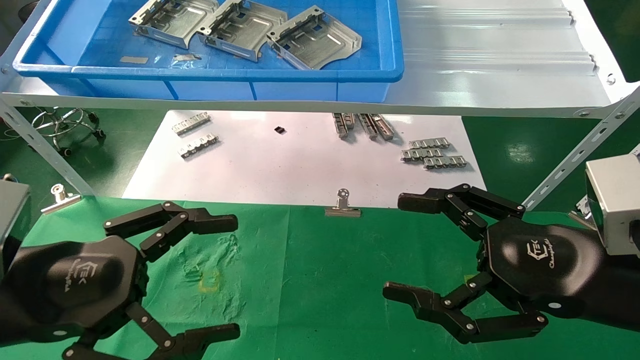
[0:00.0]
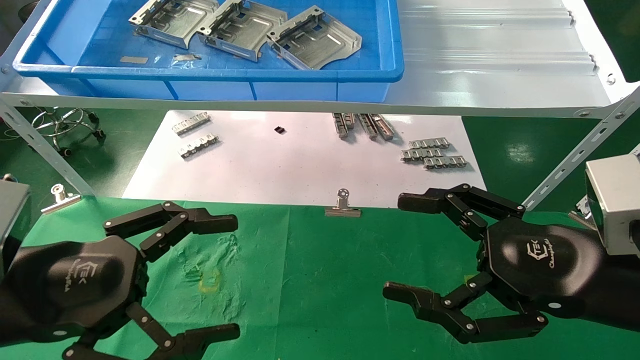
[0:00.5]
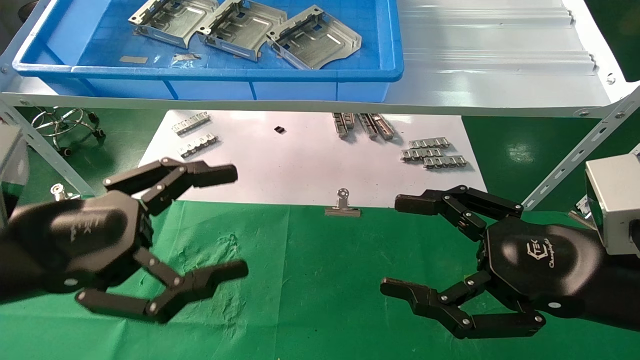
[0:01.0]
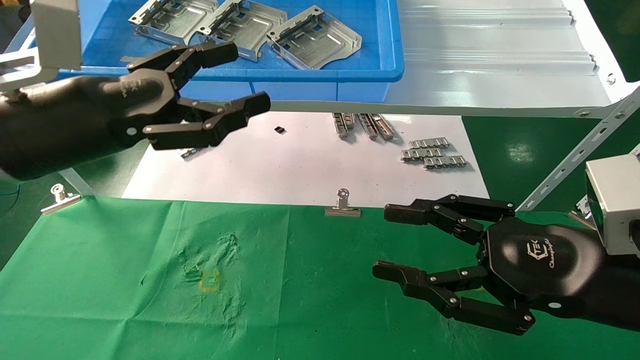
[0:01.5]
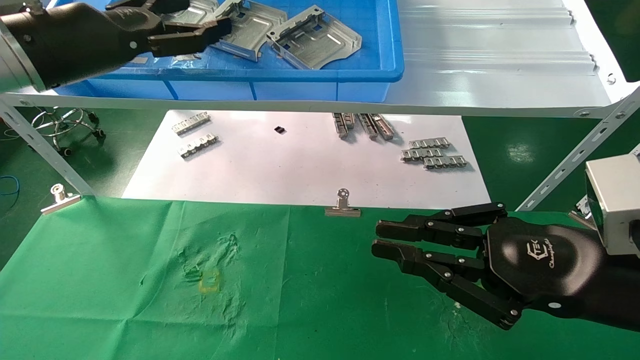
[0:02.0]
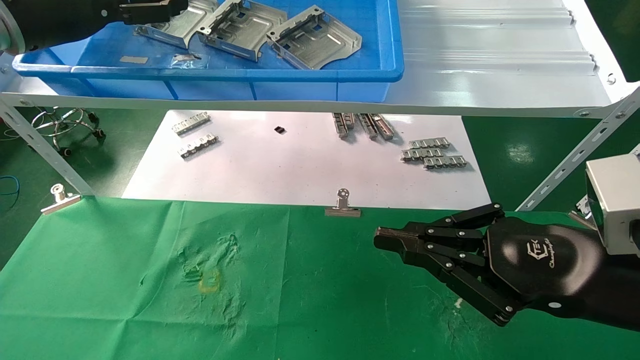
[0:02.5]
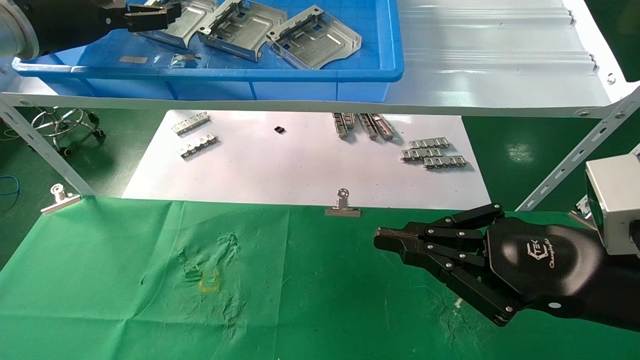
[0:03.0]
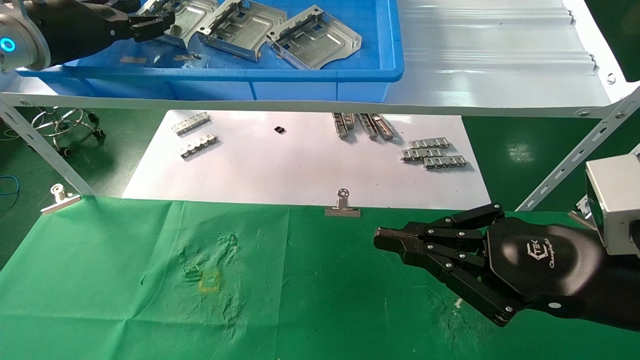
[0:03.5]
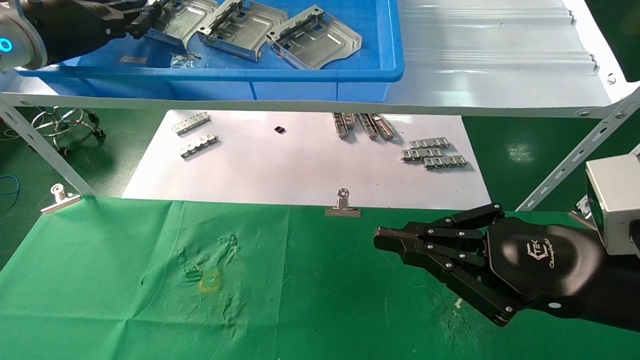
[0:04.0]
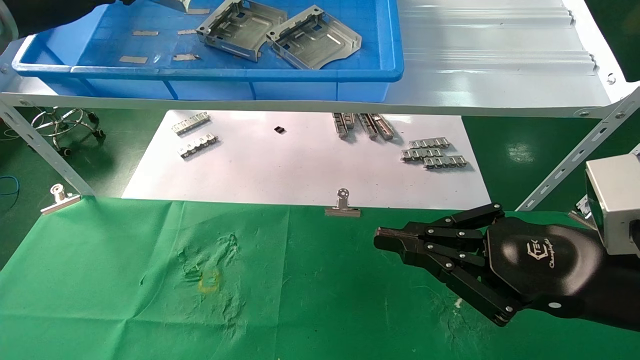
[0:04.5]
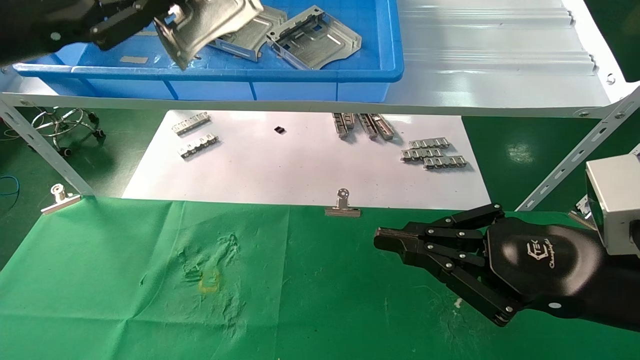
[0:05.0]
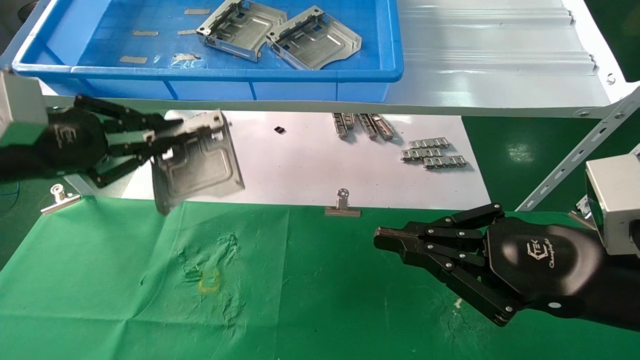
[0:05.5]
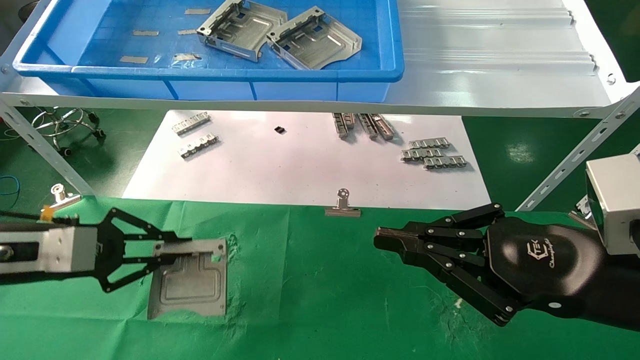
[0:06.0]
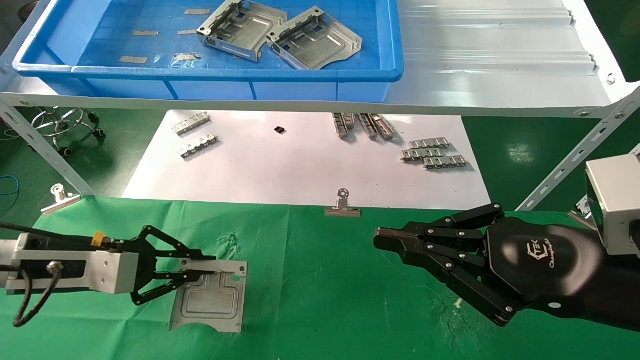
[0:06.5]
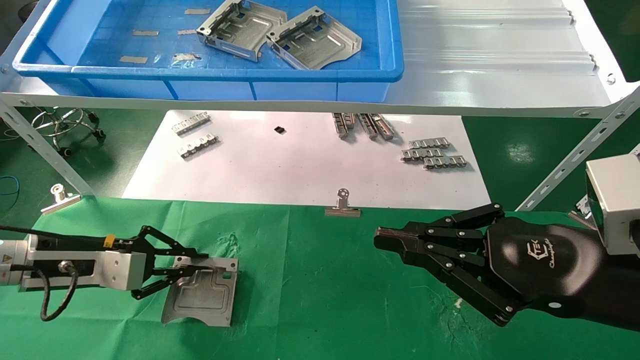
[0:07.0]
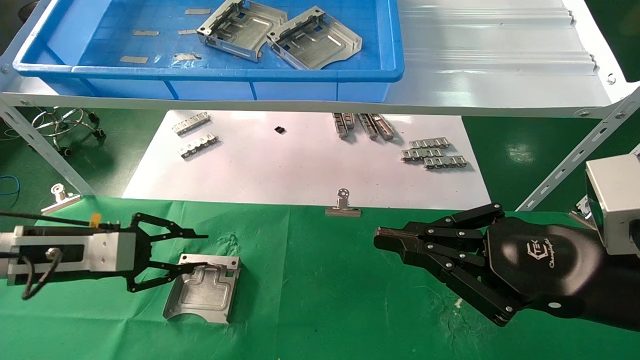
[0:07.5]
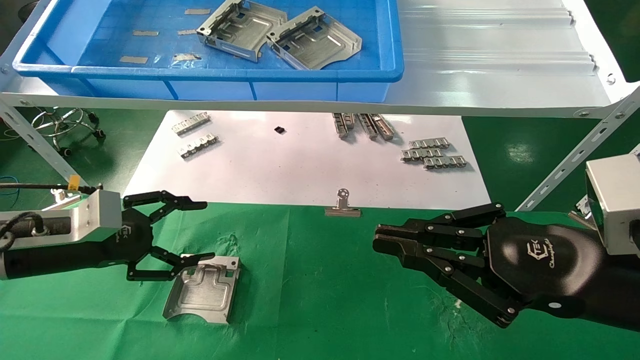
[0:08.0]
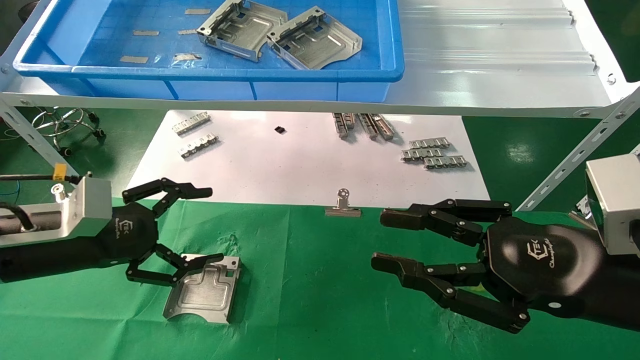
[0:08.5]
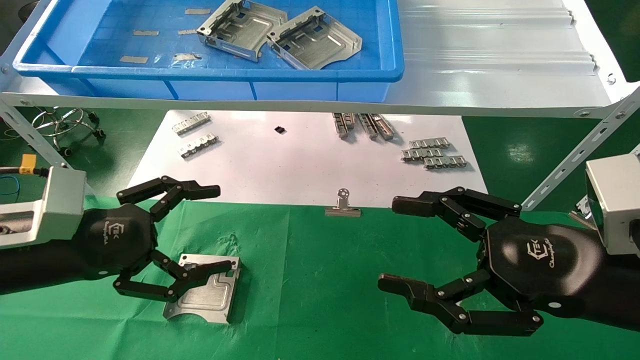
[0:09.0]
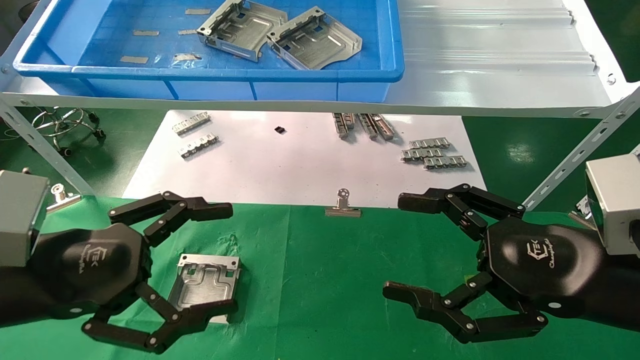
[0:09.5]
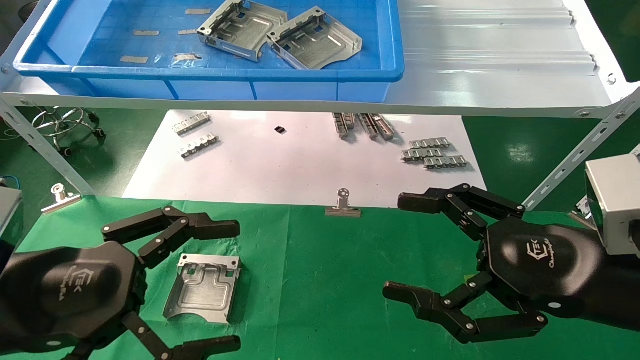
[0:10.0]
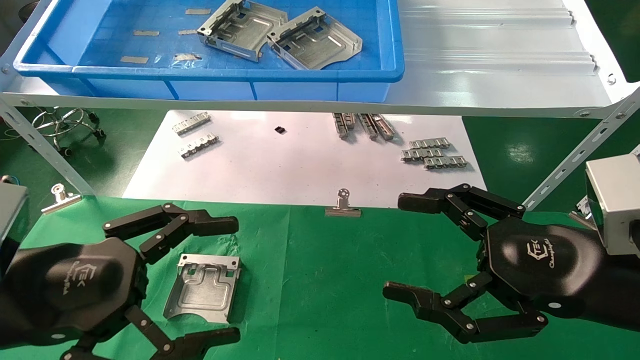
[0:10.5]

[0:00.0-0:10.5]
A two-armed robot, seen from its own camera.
Task of the whole recording: use the mechanical arm to pick up the parts and place them on the table.
Step, 0:01.5 to 0:04.0: Pick up the hard drive bracket from the feeding area.
Step, 0:04.5 to 0:07.0: Place the hard drive bracket into the box.
0:00.0 to 0:02.0: The left gripper travels upward and forward by about 25 cm; the right gripper closes up.
0:02.0 to 0:04.0: The left gripper travels forward by some 5 cm, and closes.
0:04.0 to 0:06.5: The left gripper goes some 25 cm downward.
0:06.5 to 0:08.5: The left gripper shifts by approximately 5 cm, and opens its fingers.
0:08.5 to 0:10.5: The left gripper travels backward and to the right by about 15 cm. Meanwhile the right gripper opens its fingers.
